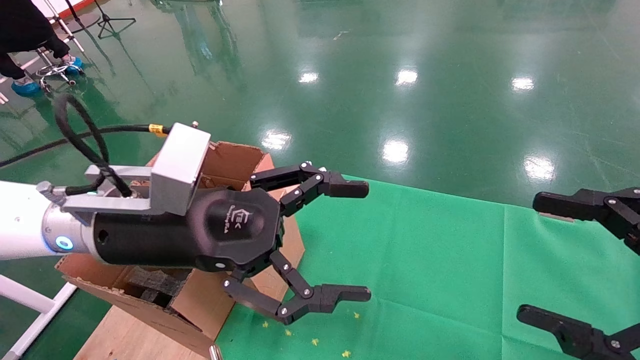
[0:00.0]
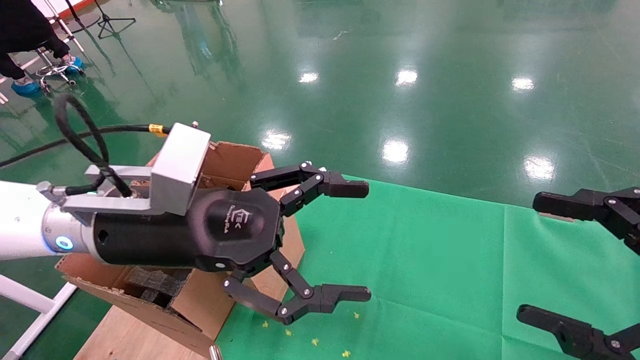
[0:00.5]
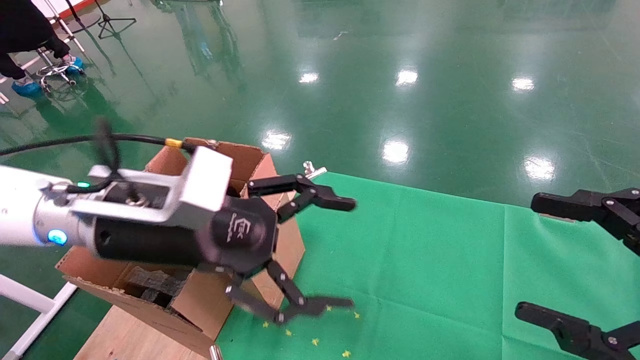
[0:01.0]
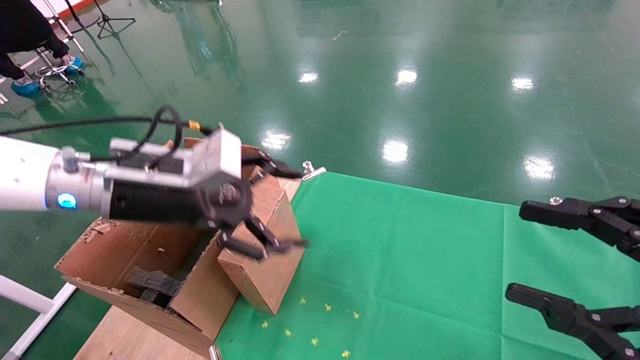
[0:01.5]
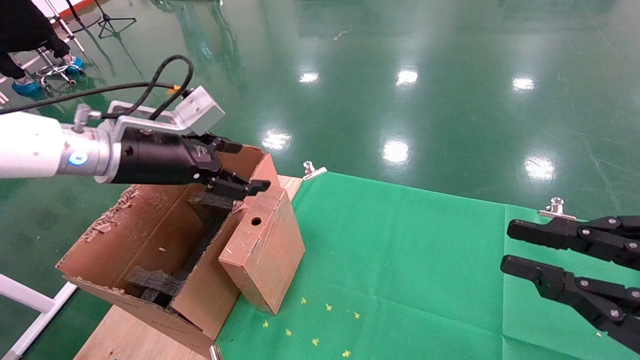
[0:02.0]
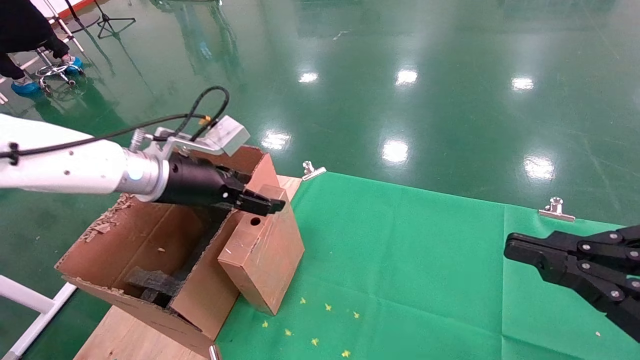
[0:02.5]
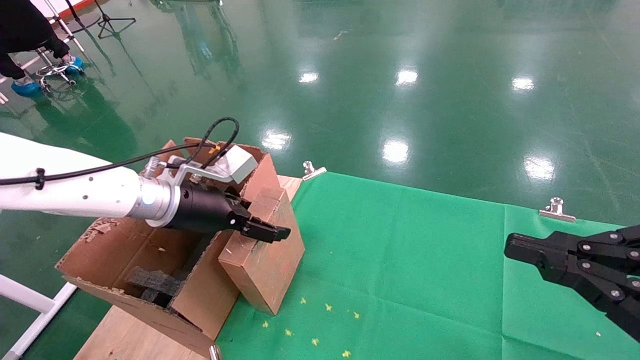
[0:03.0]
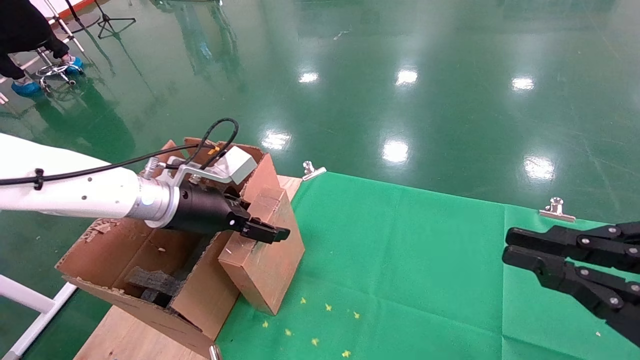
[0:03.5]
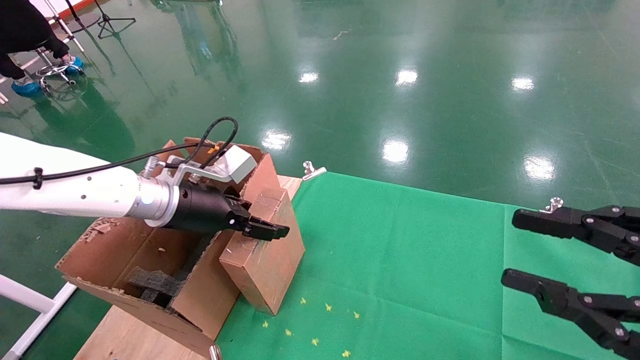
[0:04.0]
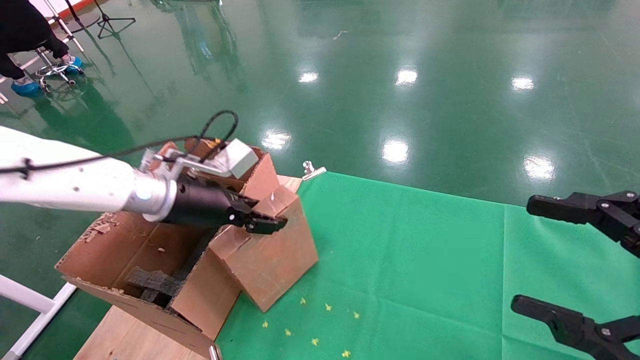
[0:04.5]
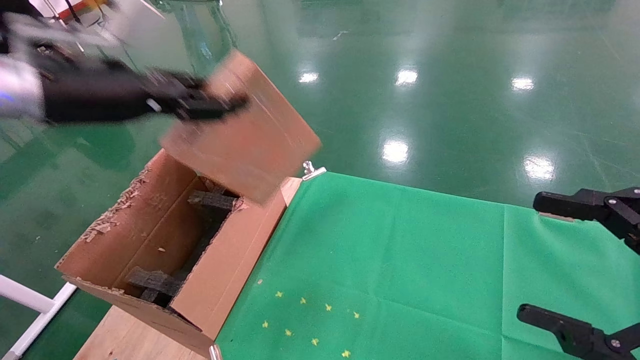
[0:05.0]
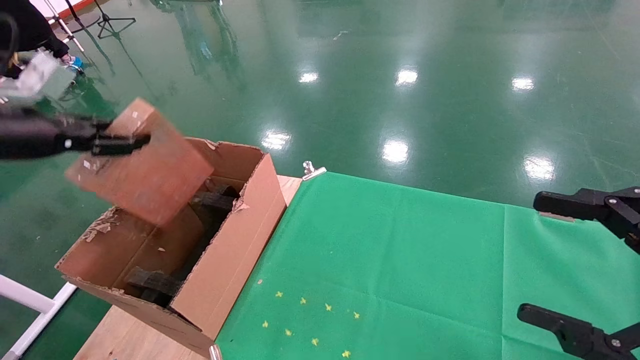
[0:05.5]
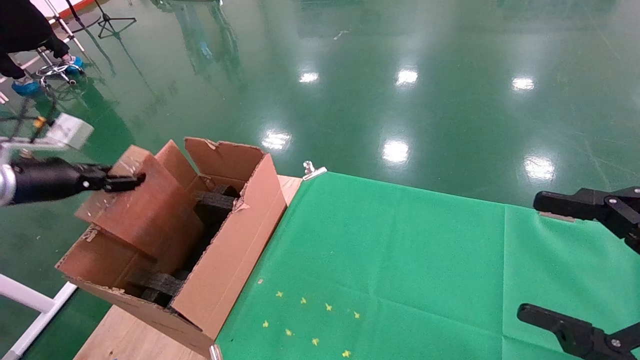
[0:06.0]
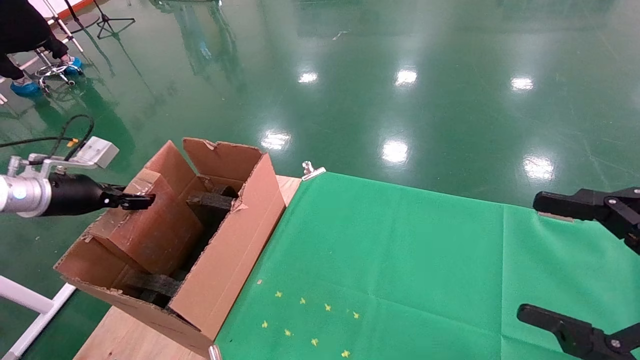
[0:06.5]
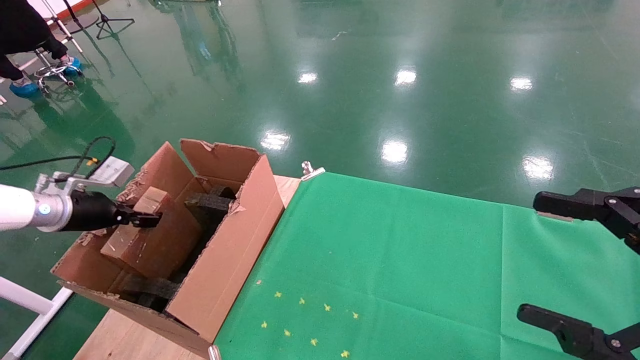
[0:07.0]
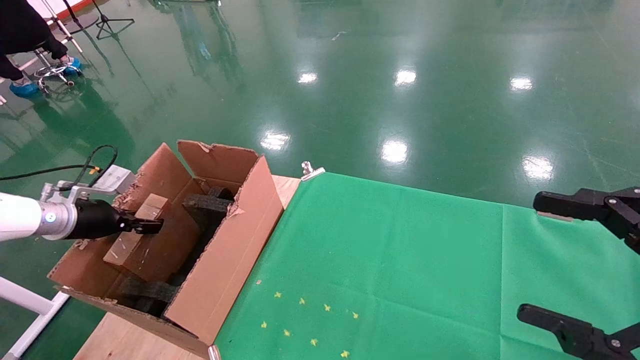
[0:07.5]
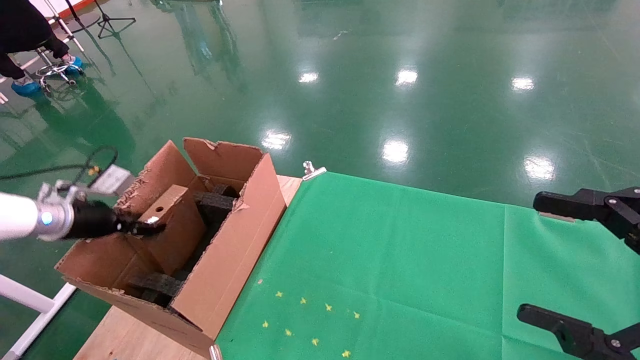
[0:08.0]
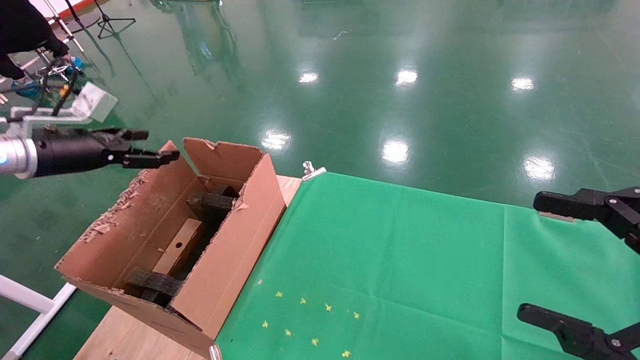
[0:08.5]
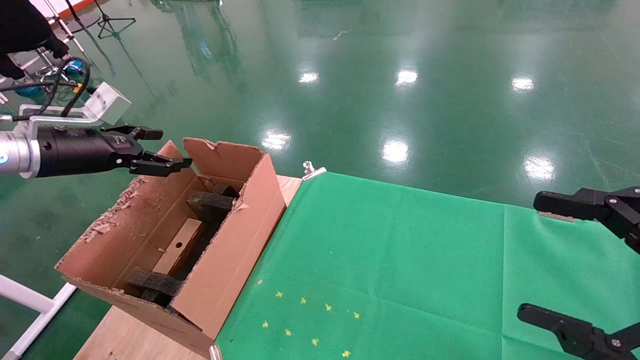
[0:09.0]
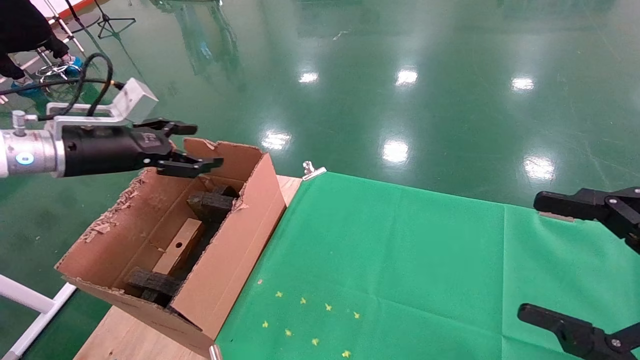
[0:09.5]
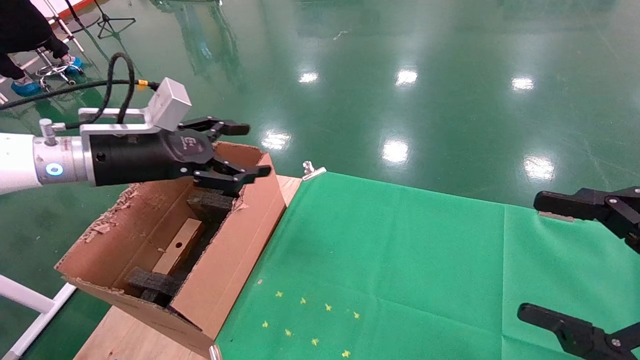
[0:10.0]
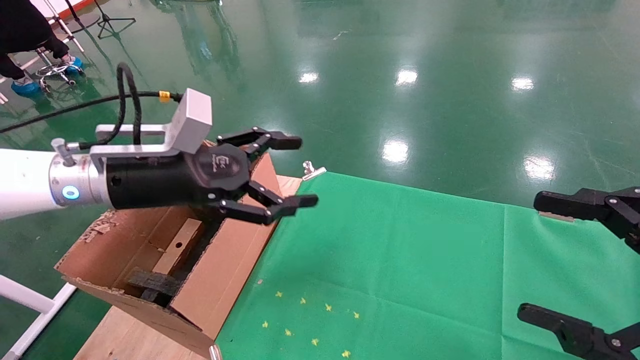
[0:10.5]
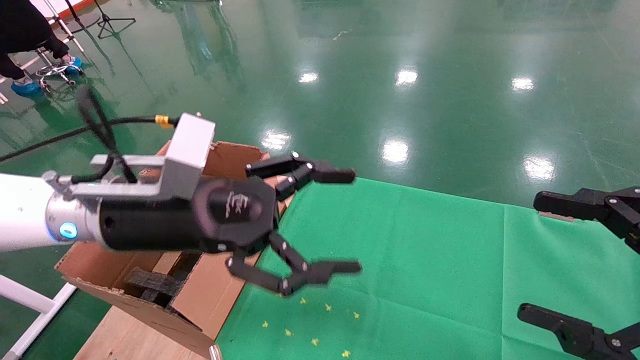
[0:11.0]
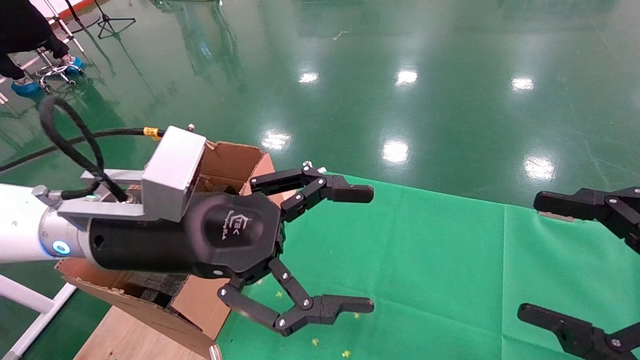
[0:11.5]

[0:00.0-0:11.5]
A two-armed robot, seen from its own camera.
Task of the whole recording: using a robotic arm to pick up a cardboard box and palace it the carton.
Step, 0:01.5 to 0:04.0: Pick up the mouse and the power cord paper box.
Step, 0:04.5 to 0:08.0: Place the mouse and the power cord paper box into the container.
0:00.0 to 0:02.0: The left gripper is displaced forward and to the left by roughly 15 cm, while the right gripper closes.
0:02.0 to 0:04.0: The left gripper travels downward by approximately 5 cm.
0:04.0 to 0:06.0: The right gripper opens its fingers. The left gripper heads to the left, covering some 25 cm, and closes its fingers.
0:06.0 to 0:07.5: The left gripper shifts about 10 cm downward.
0:07.5 to 0:09.5: The left gripper moves upward and to the right, about 20 cm, and opens its fingers.
0:09.5 to 0:11.5: The left gripper heads to the right and backward, covering roughly 25 cm.

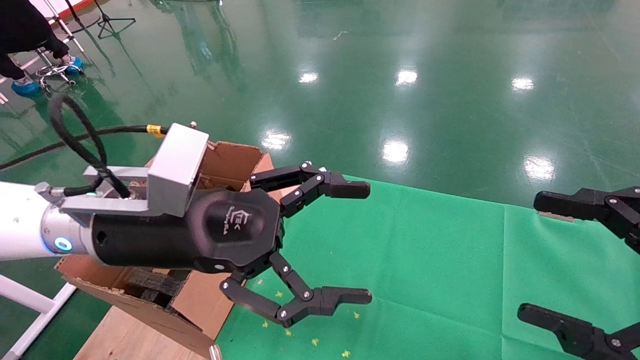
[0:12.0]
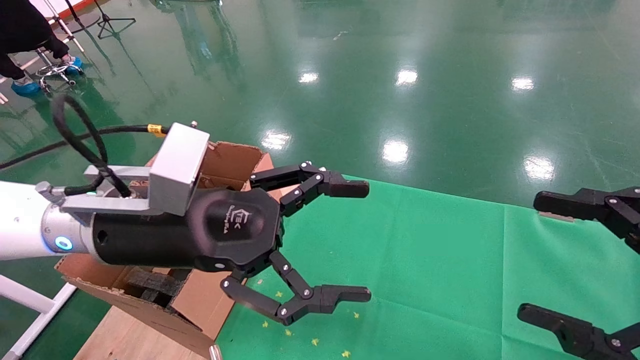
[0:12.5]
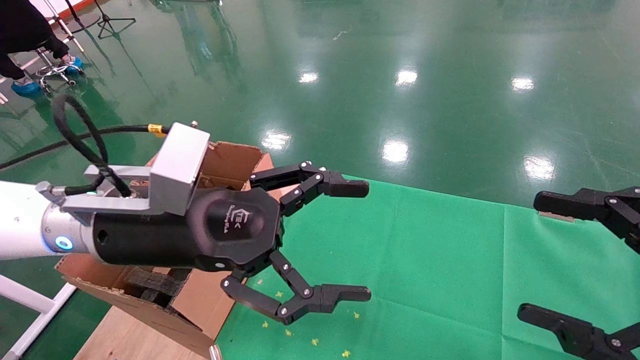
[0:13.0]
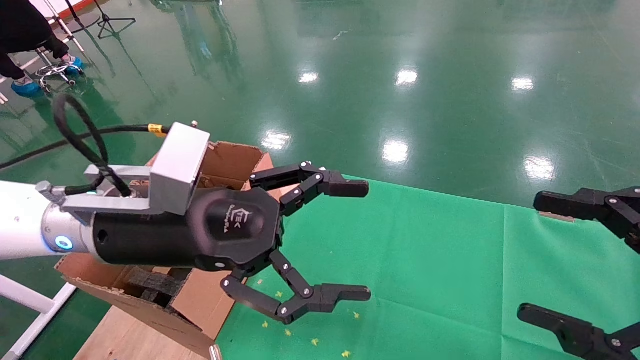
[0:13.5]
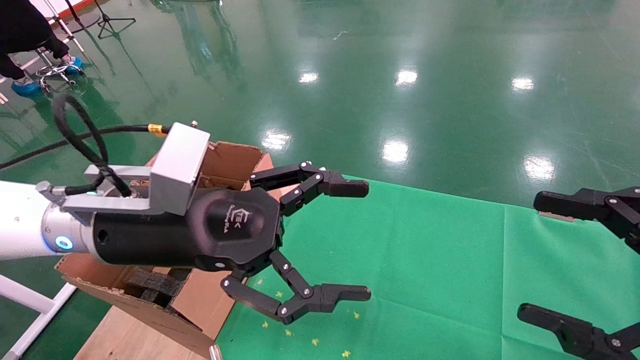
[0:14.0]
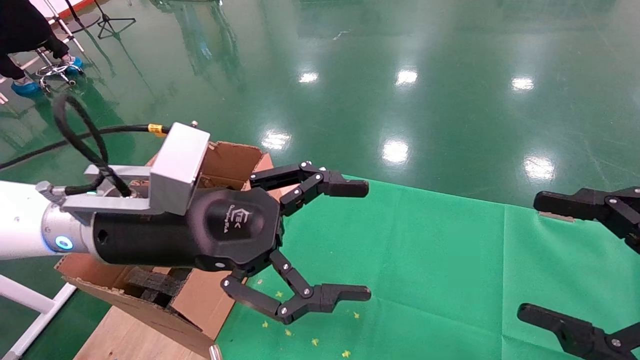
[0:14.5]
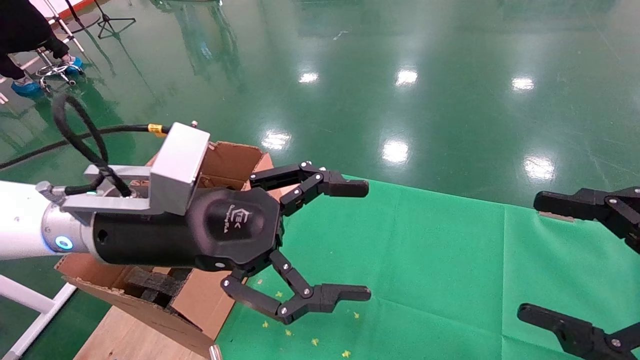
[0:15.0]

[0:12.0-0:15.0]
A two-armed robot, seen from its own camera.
Task of the whole recording: using a robotic arm to pick up a cardboard box and palace it the carton.
0:12.0 to 0:15.0: Both grippers stay about where they are.
